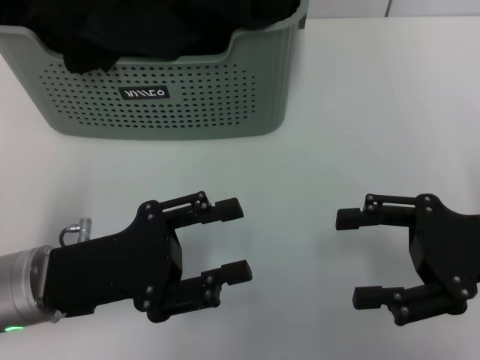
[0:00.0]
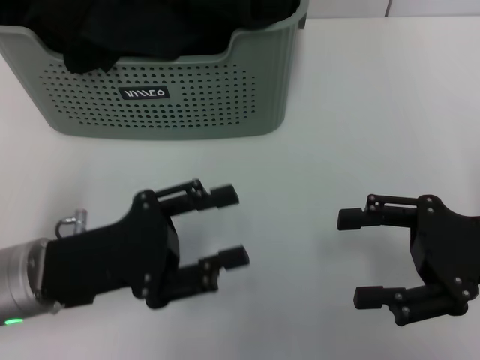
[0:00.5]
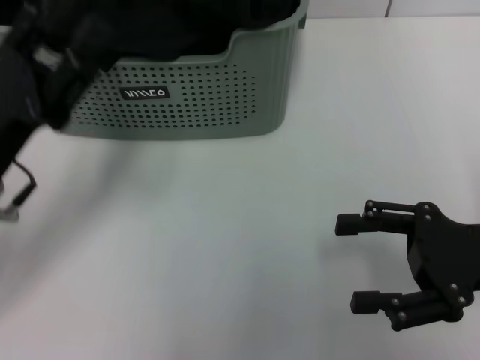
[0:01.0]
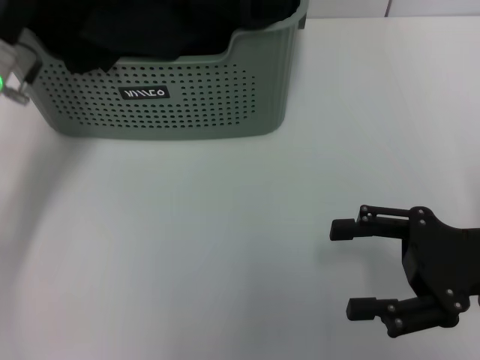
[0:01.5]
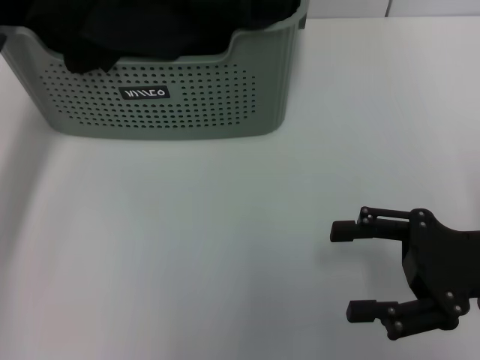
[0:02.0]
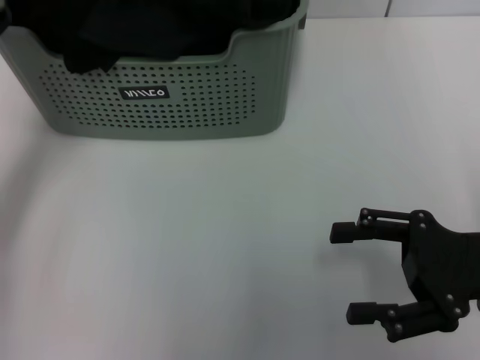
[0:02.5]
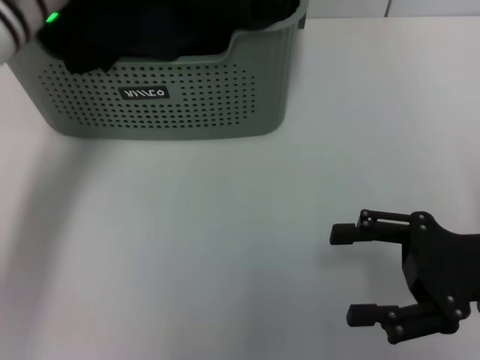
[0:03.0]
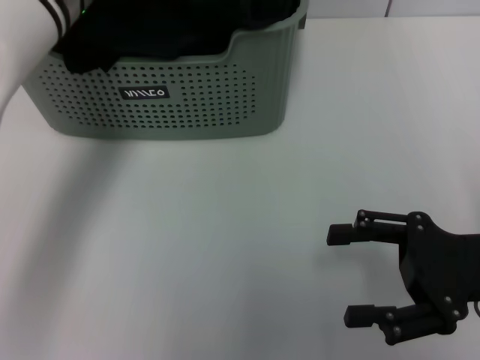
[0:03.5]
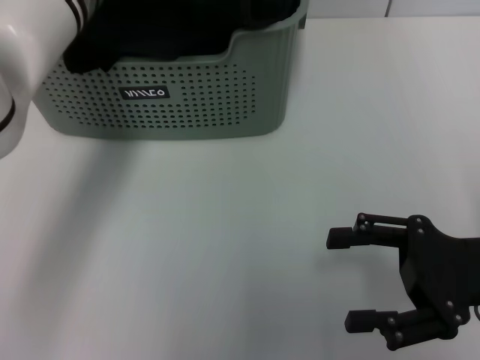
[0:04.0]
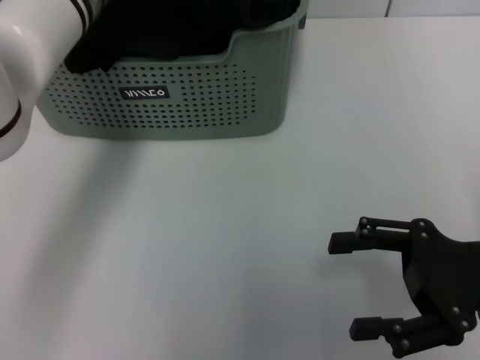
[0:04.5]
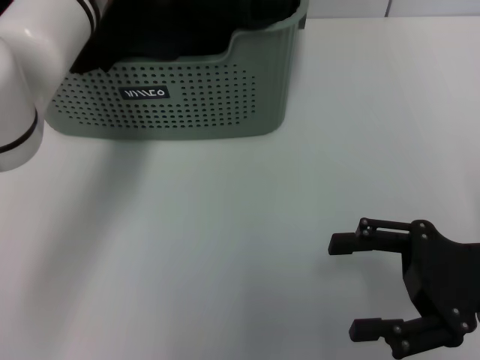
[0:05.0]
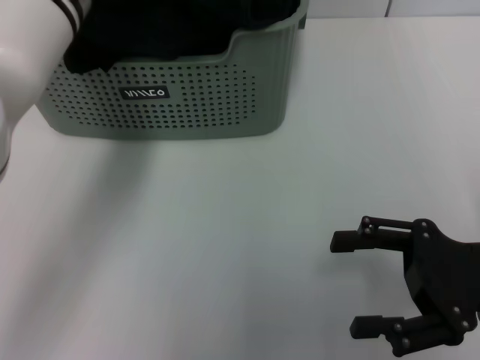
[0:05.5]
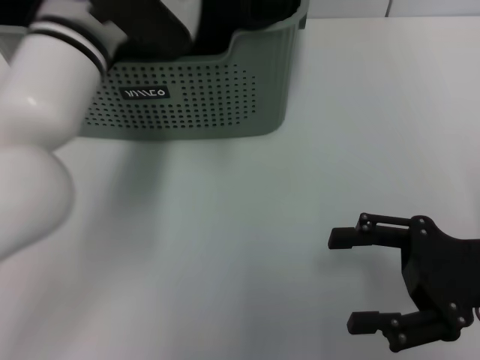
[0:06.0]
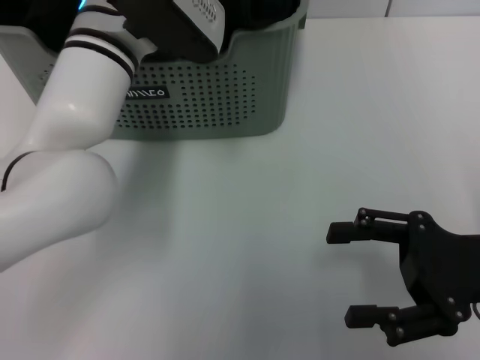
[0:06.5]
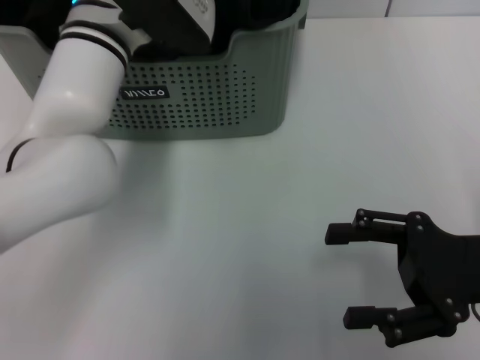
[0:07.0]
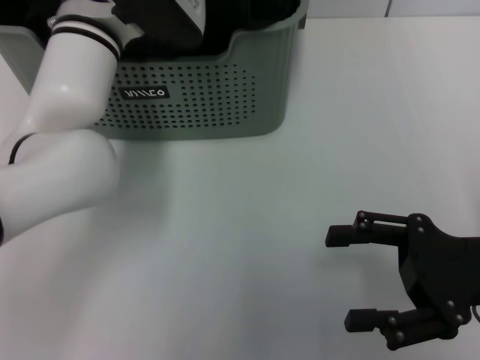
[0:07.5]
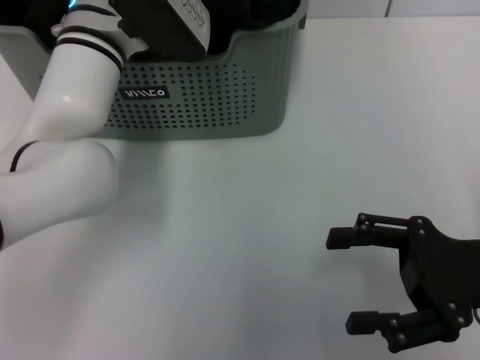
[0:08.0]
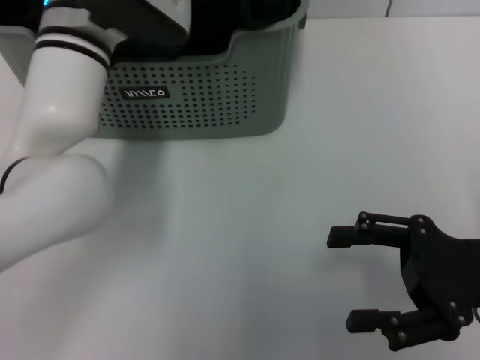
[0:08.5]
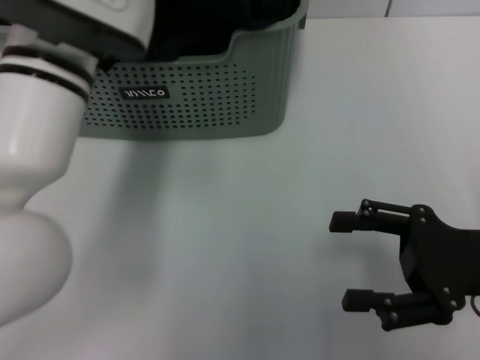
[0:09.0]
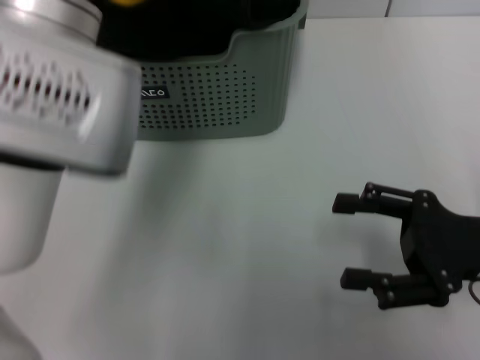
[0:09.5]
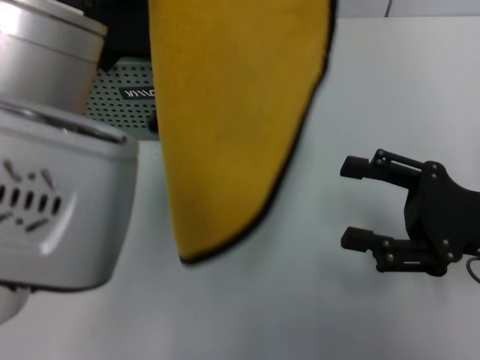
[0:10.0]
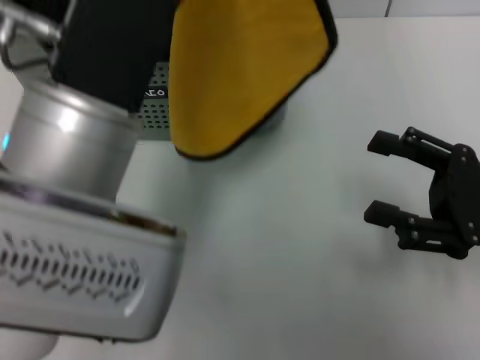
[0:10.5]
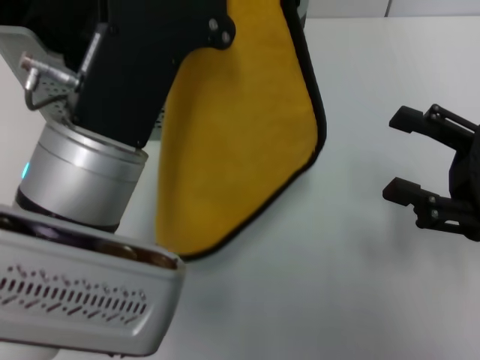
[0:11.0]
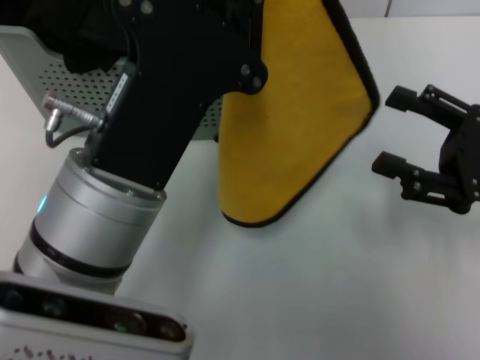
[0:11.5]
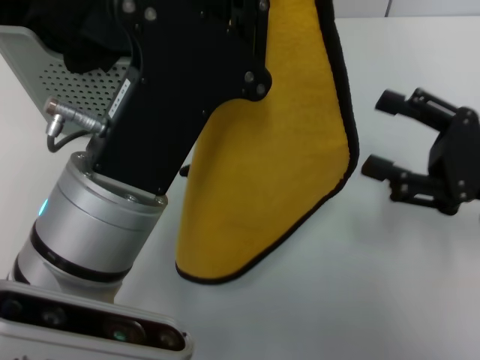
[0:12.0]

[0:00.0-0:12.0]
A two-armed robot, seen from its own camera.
Task of the whole recording: pick up the towel from the storage box and lay it flat on the table.
Step, 0:00.0 to 0:09.0: Pick up a towel with the left gripper.
0:00.0 to 0:02.0: The left gripper is displaced forward and upward by roughly 20 cm.
0:02.0 to 0:04.0: The left gripper heads to the right, covering some 10 cm.
0:04.0 to 0:06.0: The left gripper heads backward, covering roughly 5 cm, and closes.
0:06.0 to 0:08.0: The left gripper shifts by some 5 cm, and opens and closes again.
0:08.0 to 0:10.0: The left gripper travels backward and upward by approximately 25 cm.
0:10.0 to 0:12.0: The left gripper moves downward, some 10 cm.

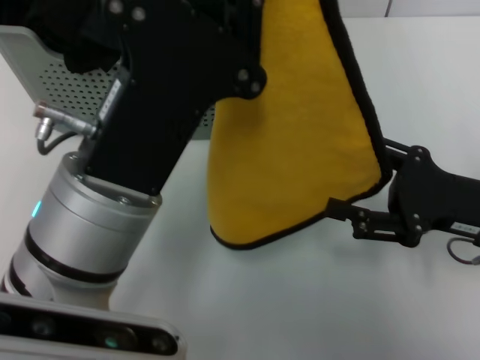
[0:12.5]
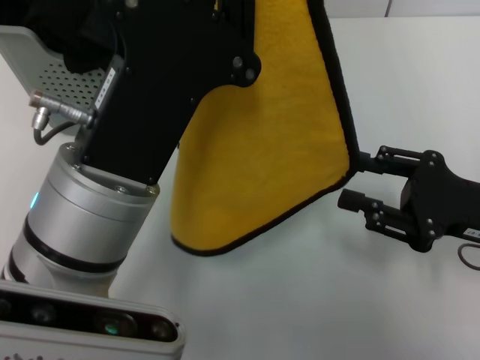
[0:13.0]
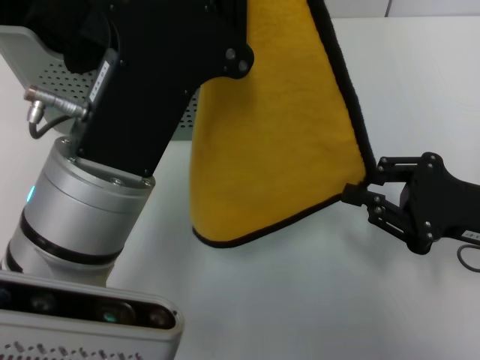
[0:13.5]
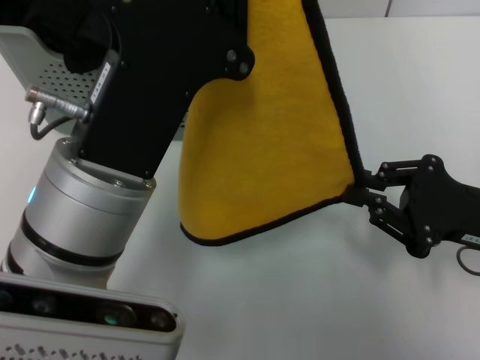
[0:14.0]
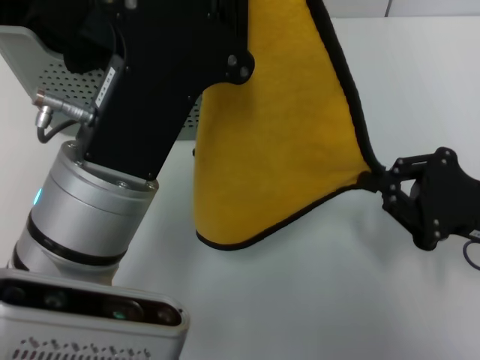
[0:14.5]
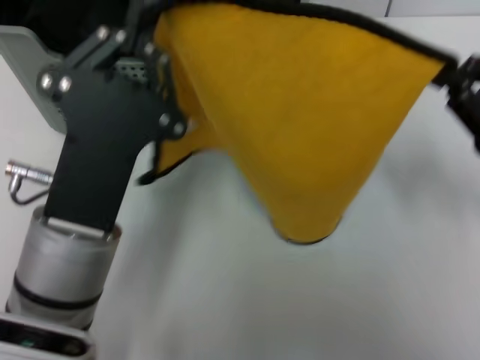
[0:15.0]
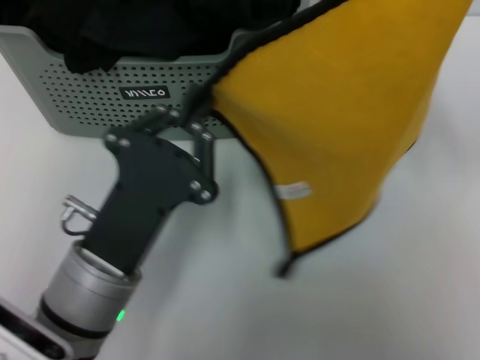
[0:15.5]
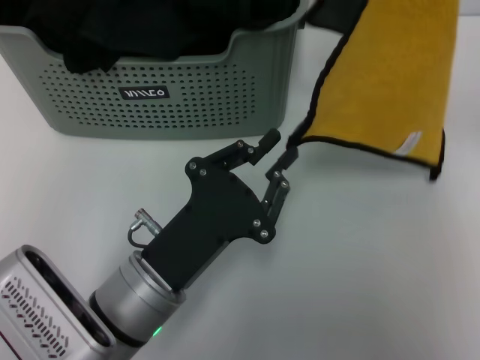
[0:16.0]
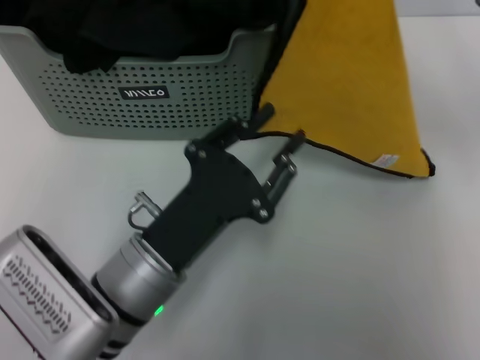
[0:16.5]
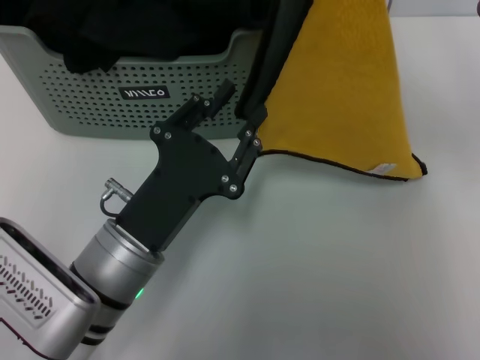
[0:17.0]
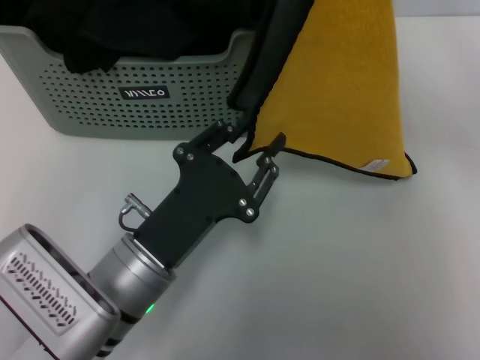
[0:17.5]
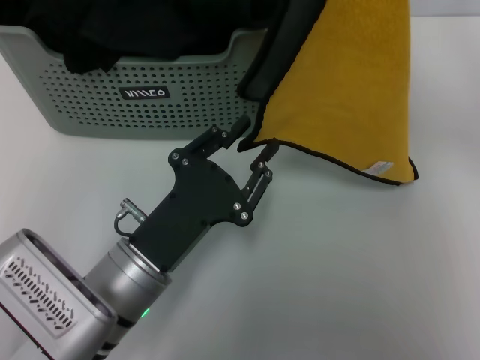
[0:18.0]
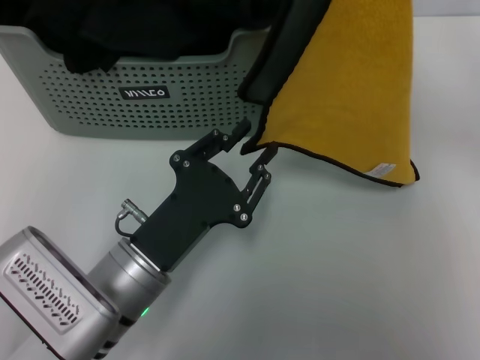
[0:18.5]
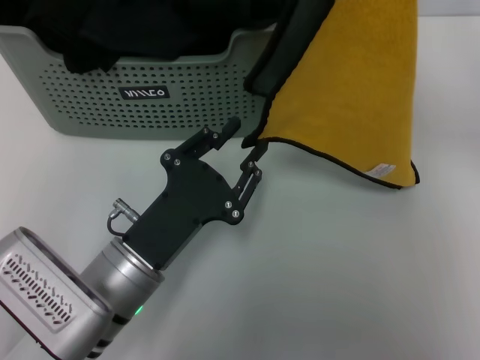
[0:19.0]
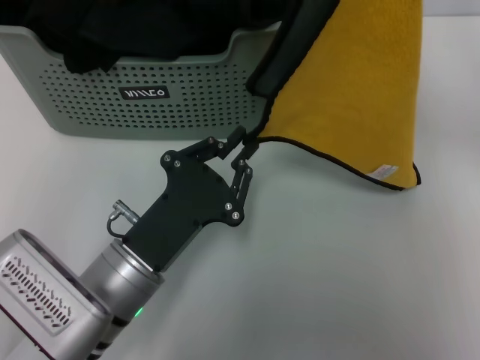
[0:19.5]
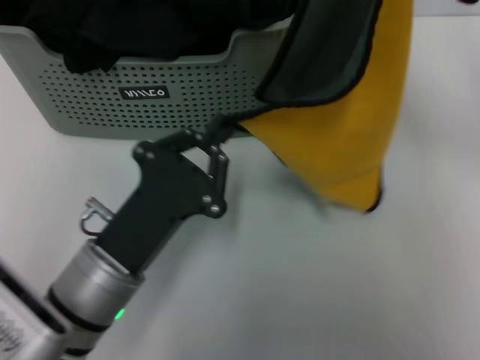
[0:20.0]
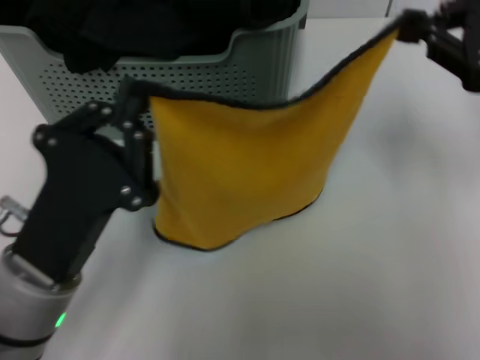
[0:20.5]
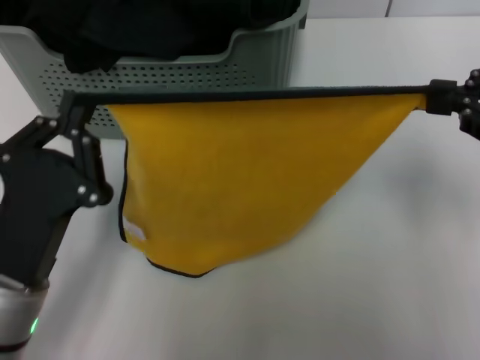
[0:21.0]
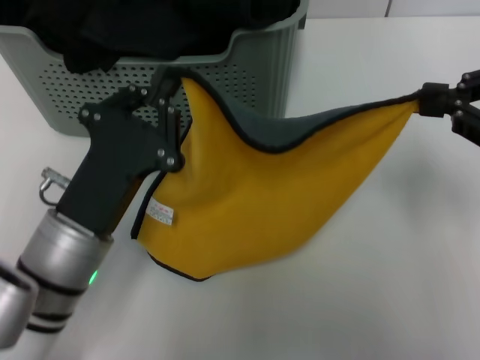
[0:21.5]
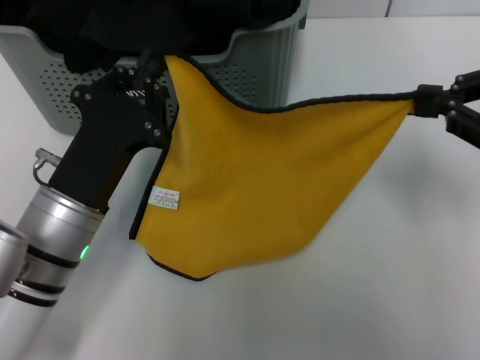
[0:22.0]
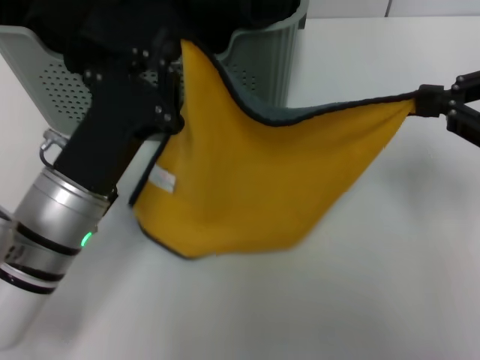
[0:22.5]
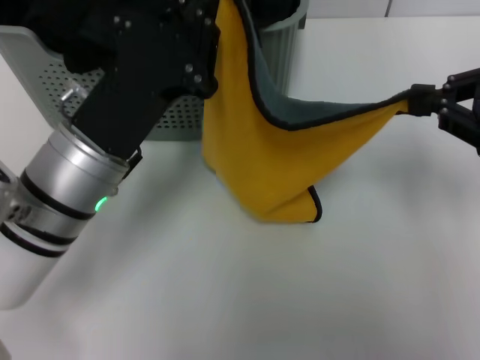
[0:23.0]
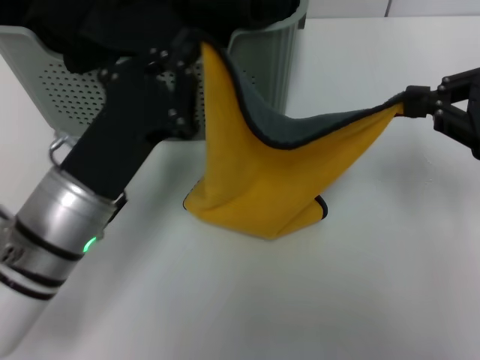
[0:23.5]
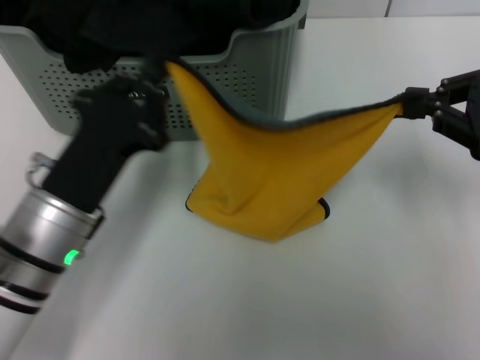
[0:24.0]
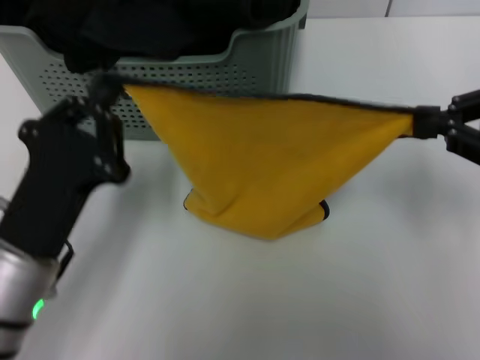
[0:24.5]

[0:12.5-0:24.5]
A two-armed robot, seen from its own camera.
Task of the whole recording: pick up the towel from the storage box and lay it flat on the table.
0:12.5 to 0:14.5: The right gripper closes.
0:14.5 to 0:16.5: The left gripper travels downward by about 10 cm, and opens its fingers, while the right gripper is displaced upward and forward by approximately 20 cm.
0:16.5 to 0:18.5: The grippers stay close to where they were, moving slightly.
0:18.5 to 0:20.5: The left gripper shifts by approximately 5 cm, and closes.
0:20.5 to 0:22.5: The left gripper heads forward, covering some 5 cm.
0:22.5 to 0:24.5: The left gripper shifts some 5 cm backward.

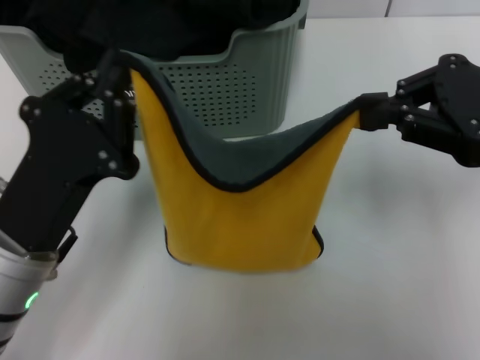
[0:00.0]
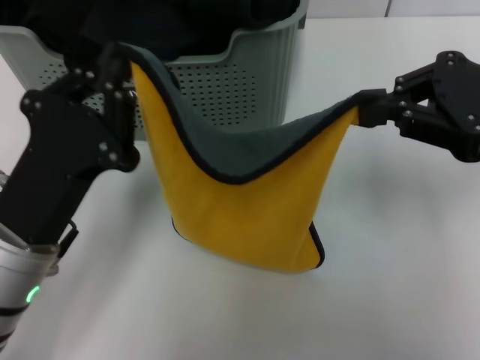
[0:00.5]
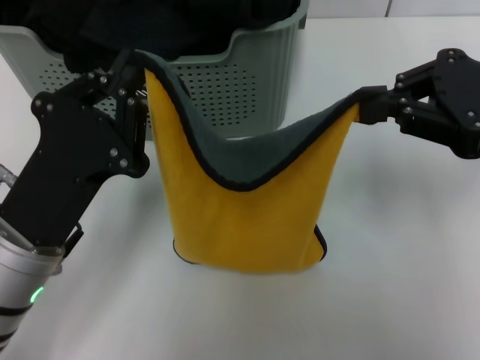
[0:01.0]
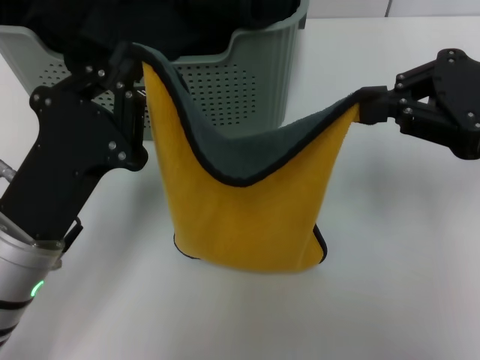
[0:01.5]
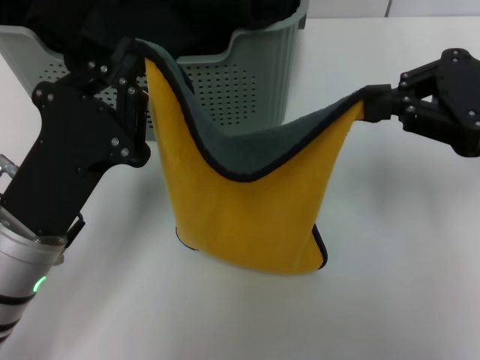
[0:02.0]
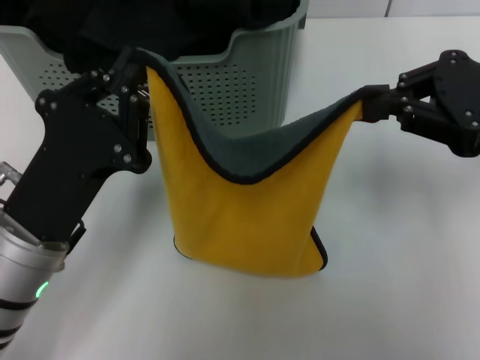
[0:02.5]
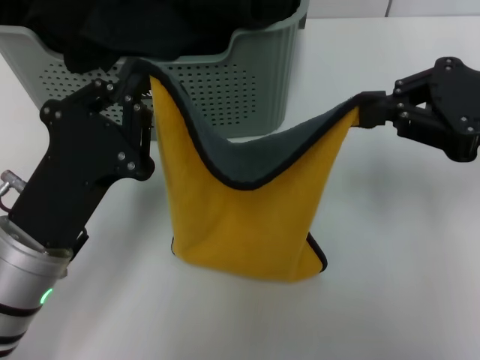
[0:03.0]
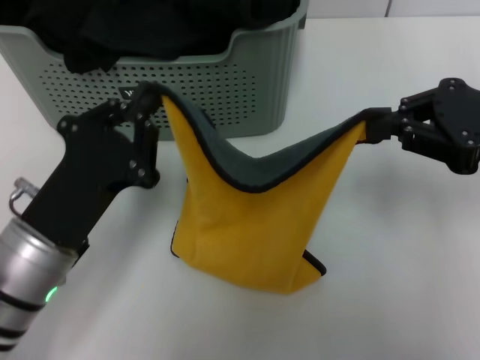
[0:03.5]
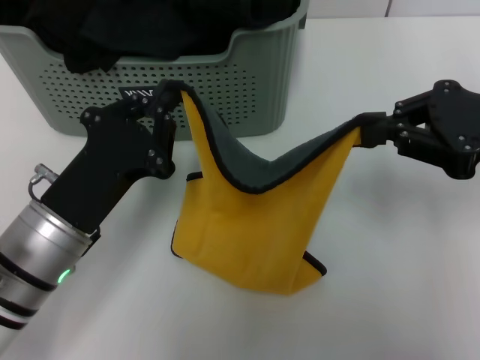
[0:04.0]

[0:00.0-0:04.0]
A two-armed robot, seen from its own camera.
Task of the whole recording: pick up the towel from the storage box and lay it flat on the table.
0:00.0 to 0:02.0: Both grippers stay put.
